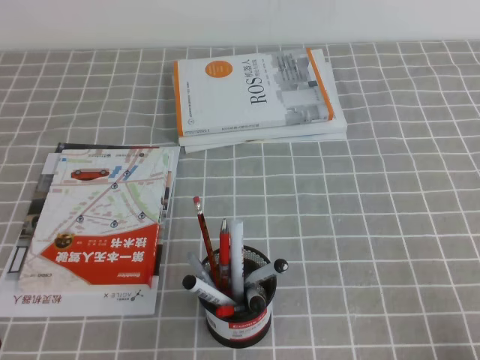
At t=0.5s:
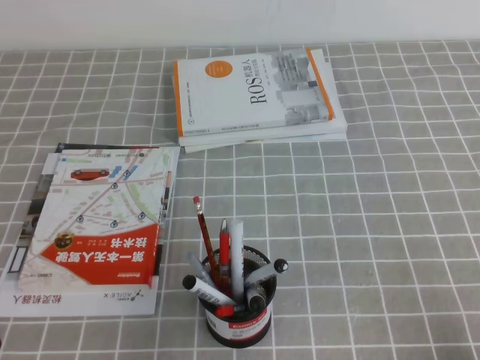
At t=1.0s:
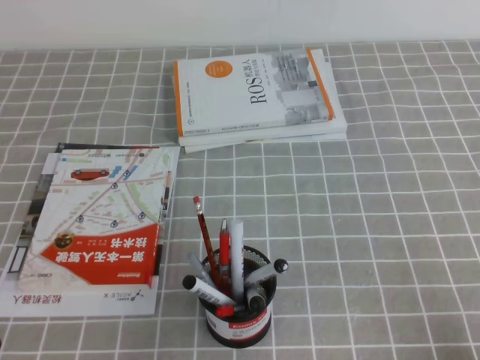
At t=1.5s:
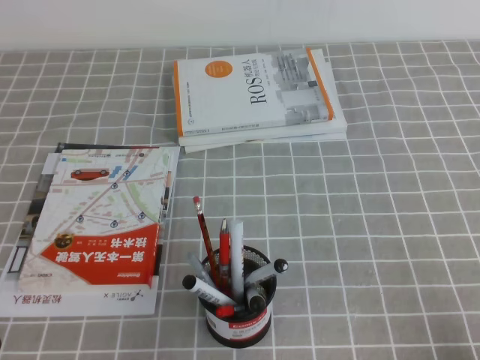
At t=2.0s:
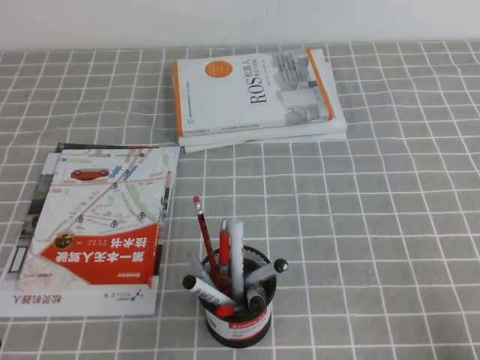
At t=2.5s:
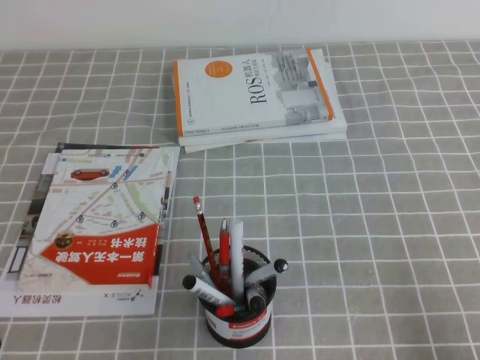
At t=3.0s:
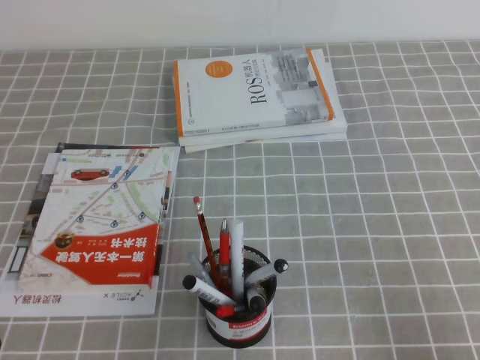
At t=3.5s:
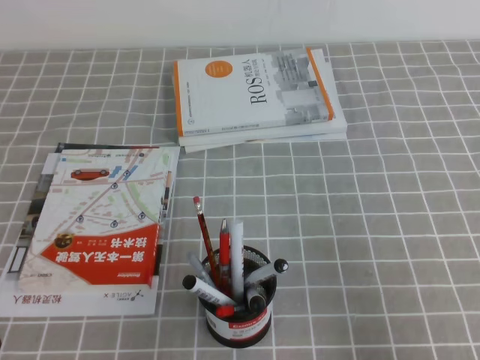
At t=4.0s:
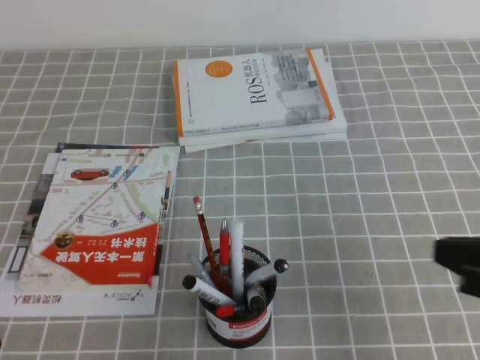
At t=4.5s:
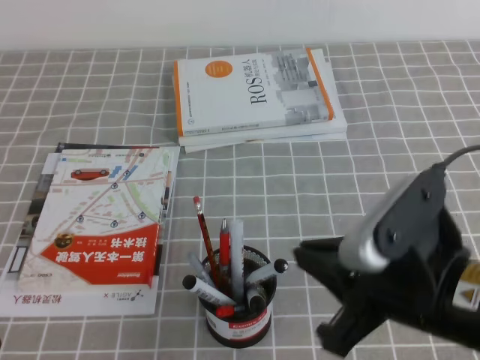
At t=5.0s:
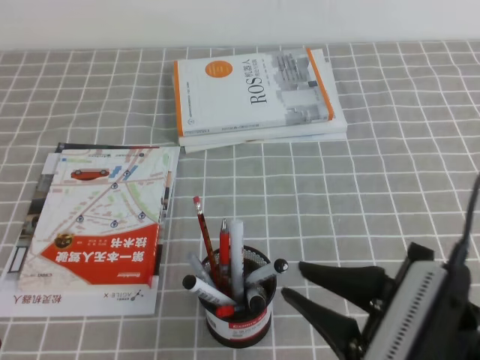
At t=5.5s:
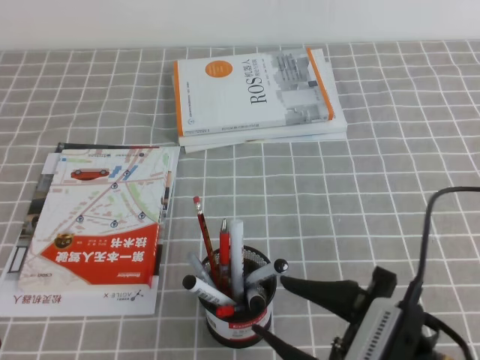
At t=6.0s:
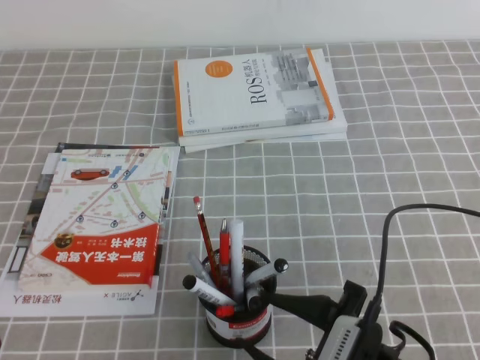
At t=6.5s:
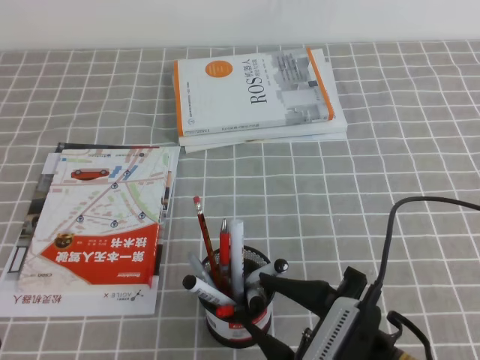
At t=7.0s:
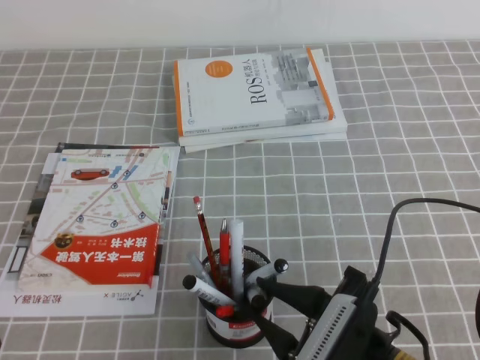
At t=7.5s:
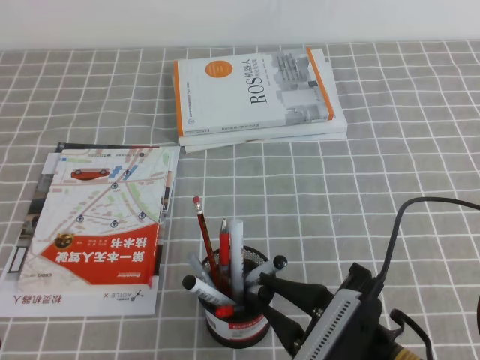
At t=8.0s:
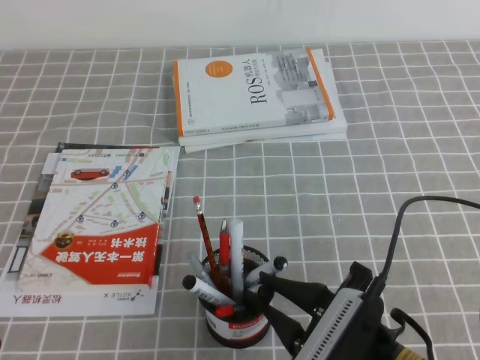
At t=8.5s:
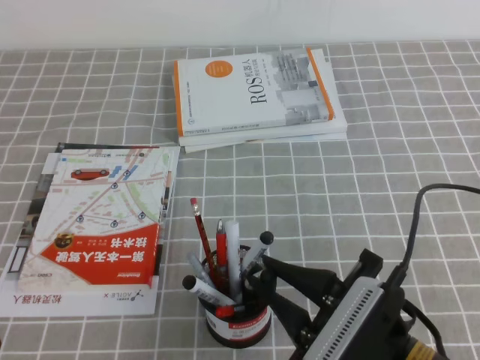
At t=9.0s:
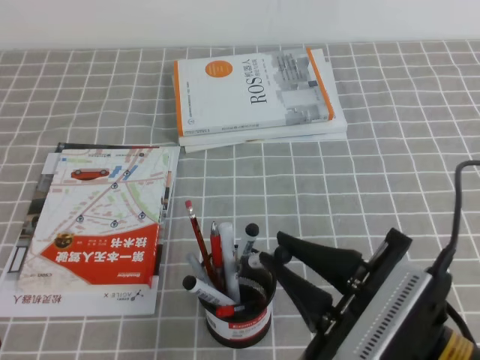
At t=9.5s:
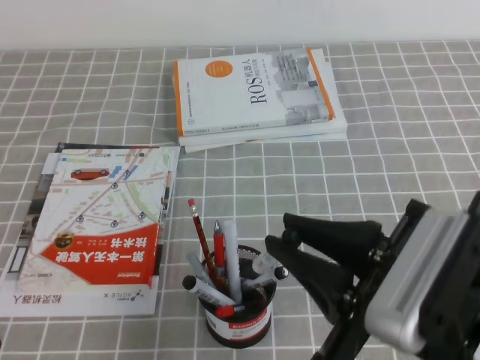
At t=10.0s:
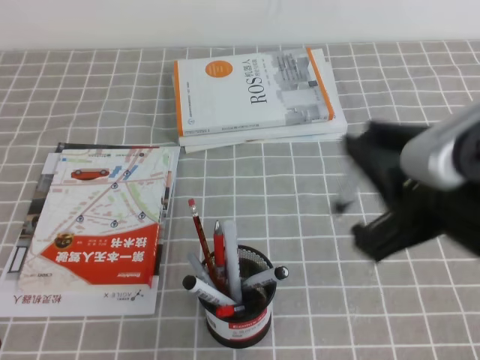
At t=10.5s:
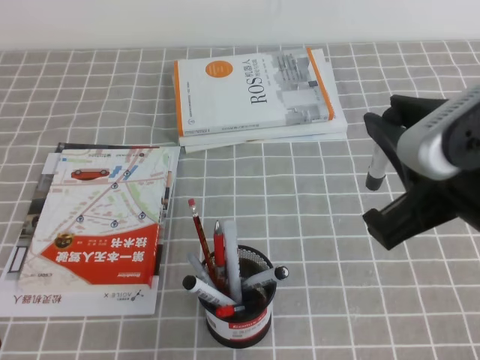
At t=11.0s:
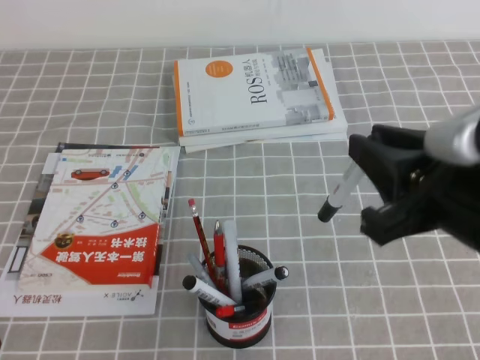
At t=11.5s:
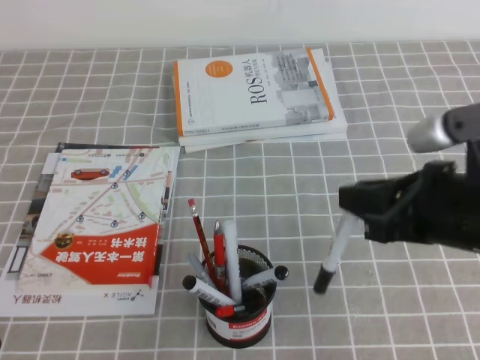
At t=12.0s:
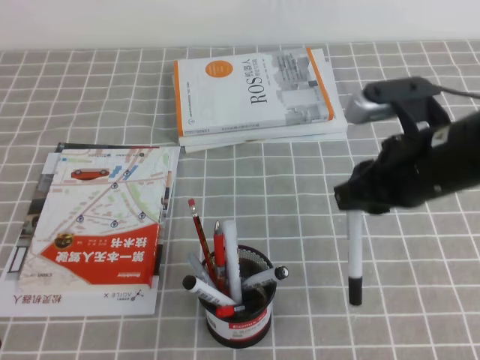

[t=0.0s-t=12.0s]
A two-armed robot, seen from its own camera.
t=0.0s to t=2.0s: Both grippers stay put.
t=2.0s to t=4.0s: The right gripper goes approximately 15 cm upward, forward and to the left.
t=4.0s to t=6.0s: The right gripper is displaced to the left and downward by approximately 20 cm, and opens its fingers.
t=6.0s to t=8.0s: The right gripper closes.
t=8.0s to t=10.0s: The right gripper shifts approximately 20 cm upward.
t=10.0s to t=12.0s: The right gripper shifts about 15 cm forward and downward.

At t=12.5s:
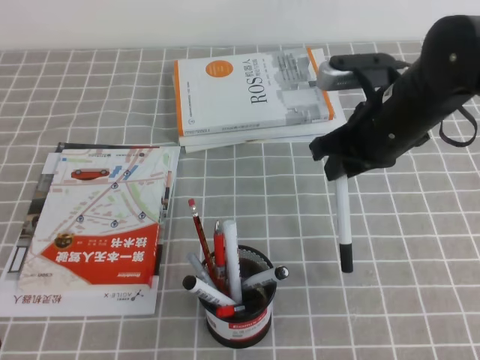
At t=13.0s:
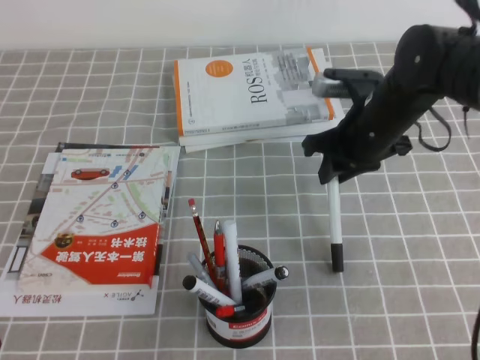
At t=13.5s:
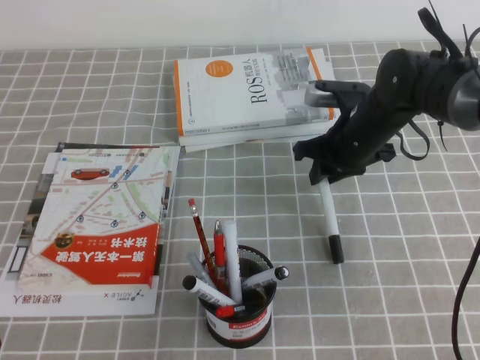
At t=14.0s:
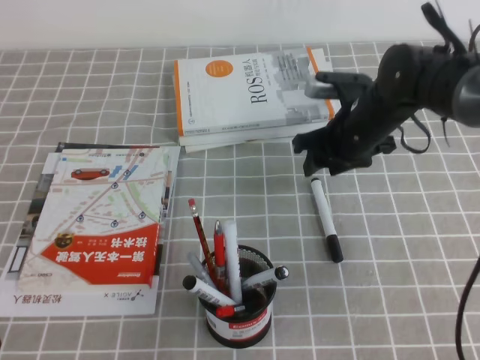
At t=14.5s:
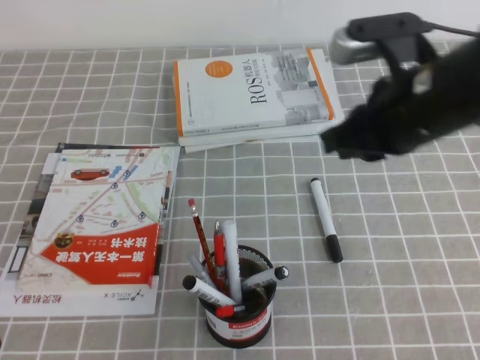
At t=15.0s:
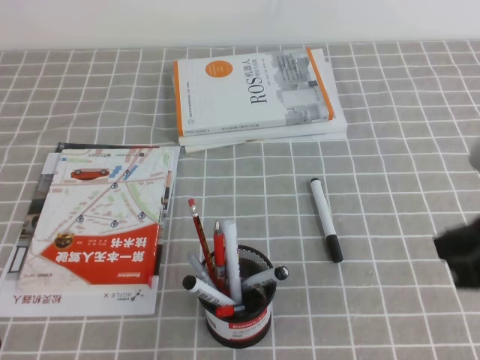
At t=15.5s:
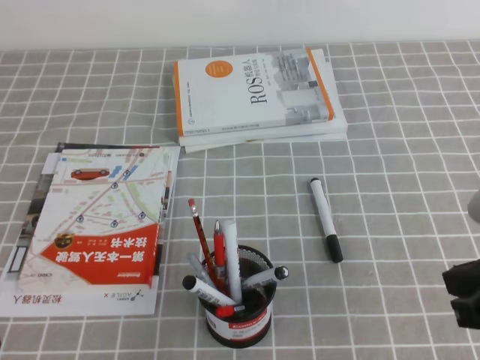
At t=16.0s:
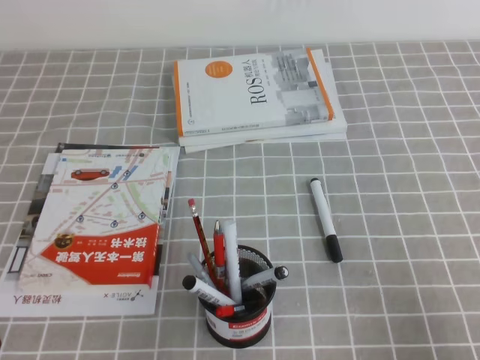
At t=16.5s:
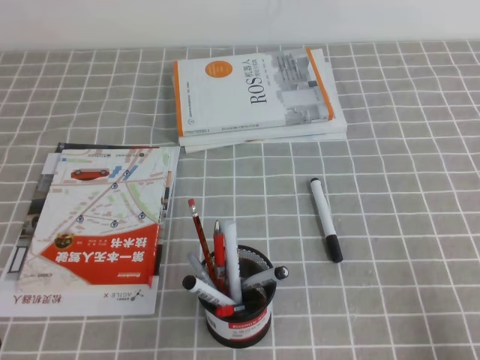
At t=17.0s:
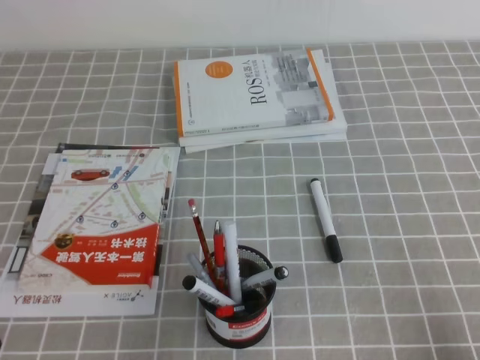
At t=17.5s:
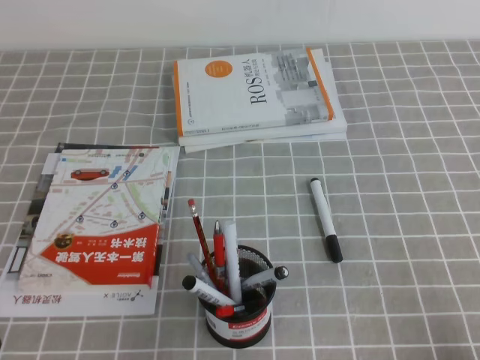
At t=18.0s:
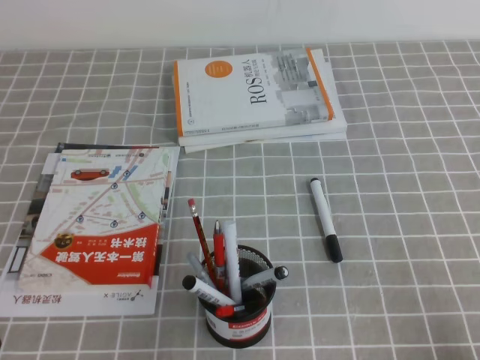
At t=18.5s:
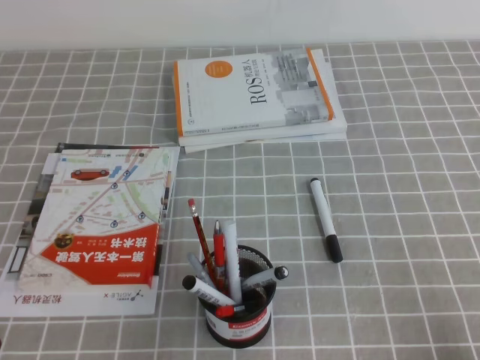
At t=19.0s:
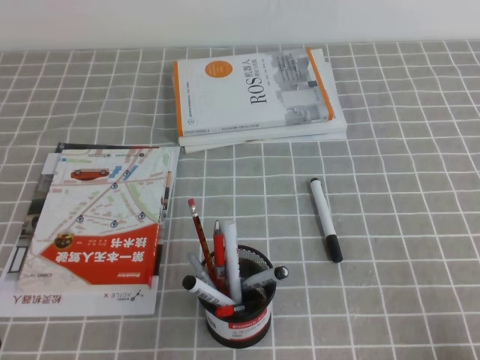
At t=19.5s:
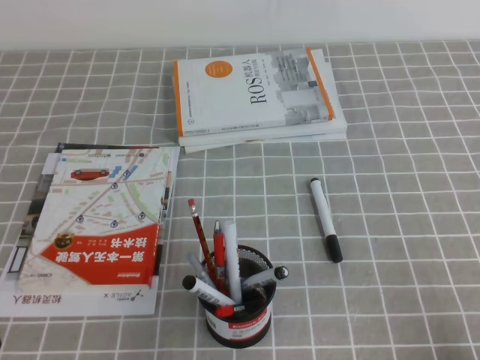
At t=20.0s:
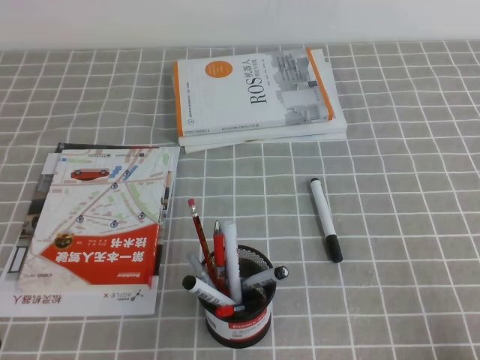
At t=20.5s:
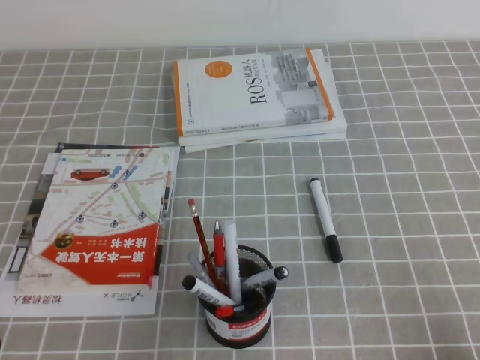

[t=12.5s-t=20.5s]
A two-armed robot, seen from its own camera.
Step, t=12.5s to t=20.5s: Pick up the pen from the pen holder.
t=12.5s to t=14.5s: The right gripper goes roughly 5 cm upward, and opens, then closes once more.
t=14.5s to t=16.5s: The right gripper moves backward, to the right and downward, some 30 cm.
t=18.5s to t=20.5s: The two grippers keep their place.

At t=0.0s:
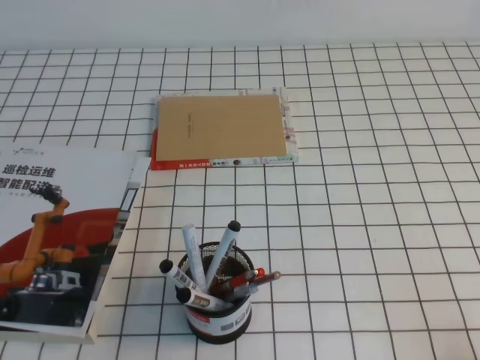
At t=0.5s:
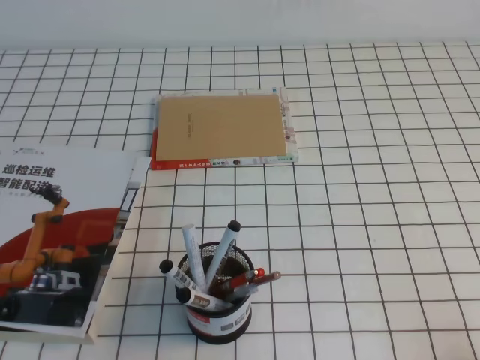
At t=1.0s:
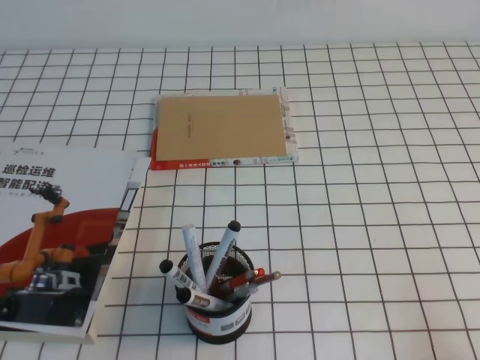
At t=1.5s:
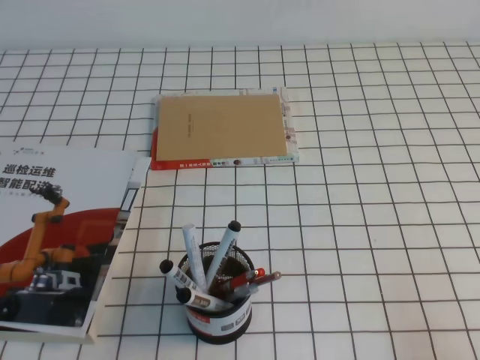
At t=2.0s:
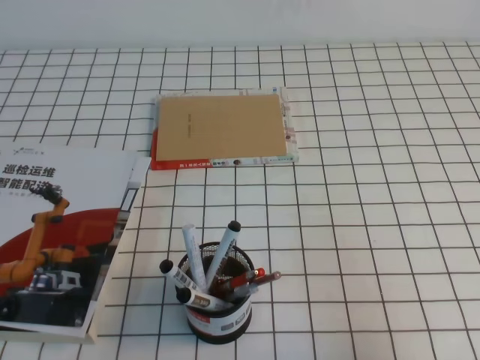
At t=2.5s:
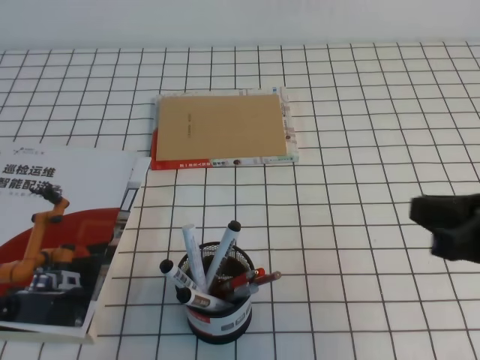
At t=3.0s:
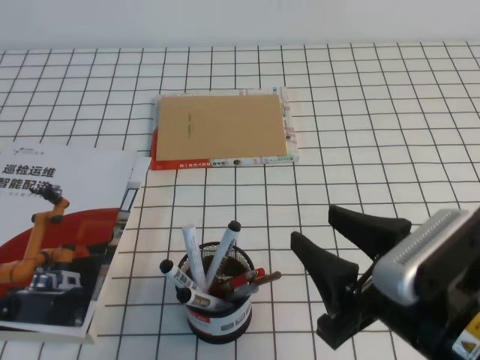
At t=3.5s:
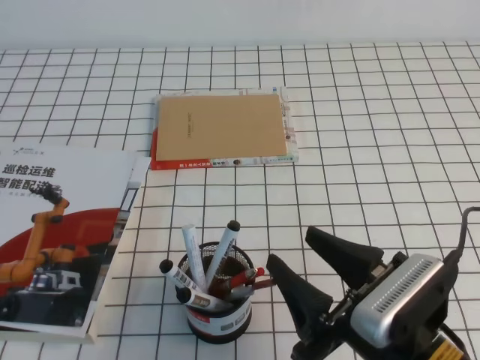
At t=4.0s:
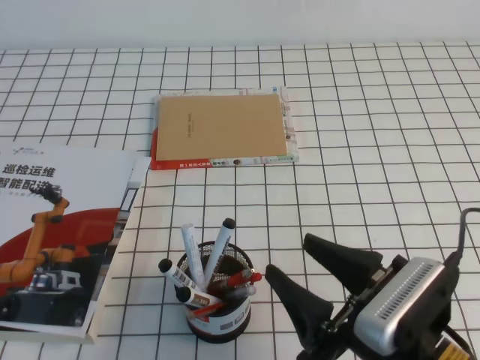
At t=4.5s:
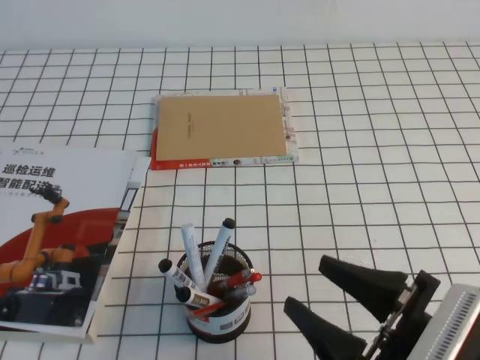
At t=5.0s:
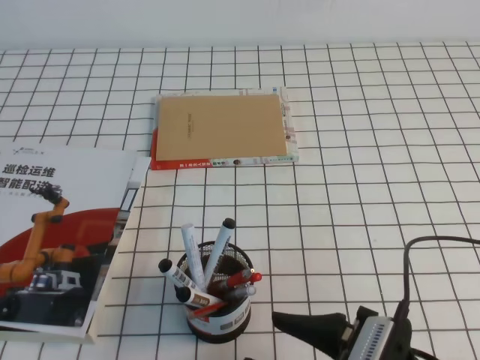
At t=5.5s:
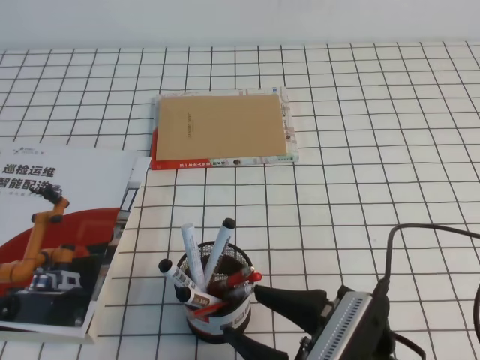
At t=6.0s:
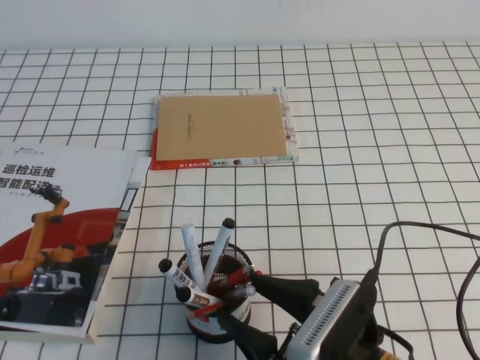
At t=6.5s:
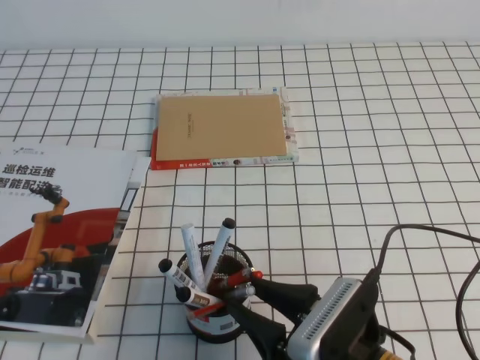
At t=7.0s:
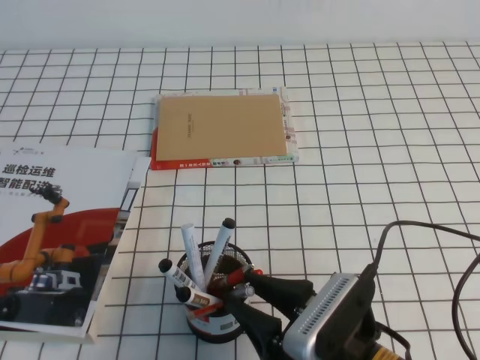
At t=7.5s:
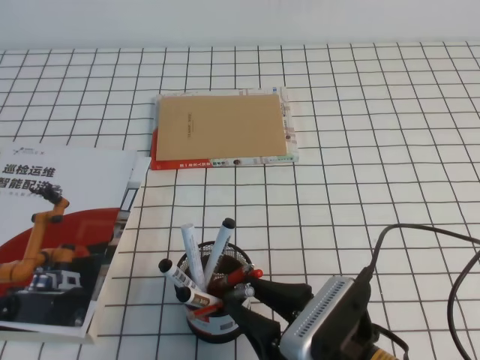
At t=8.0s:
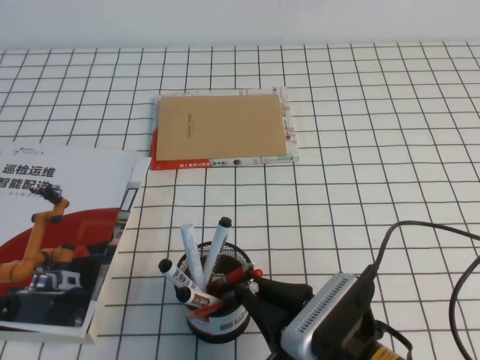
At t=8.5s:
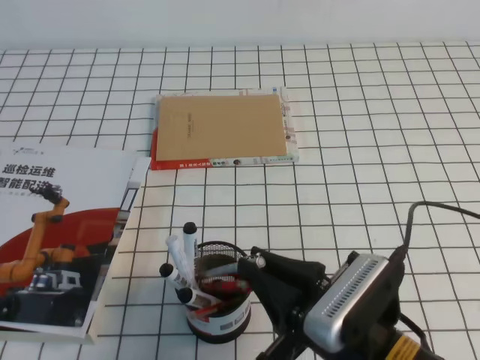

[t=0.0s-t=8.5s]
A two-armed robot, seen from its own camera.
t=0.0s to t=2.0s: The right gripper goes approximately 10 cm upward.
t=2.0s to t=4.0s: The right gripper travels to the left and downward by approximately 20 cm, and opens up.
t=4.0s to t=6.5s: The right gripper moves approximately 5 cm.
t=6.5s to t=8.5s: The right gripper closes.
